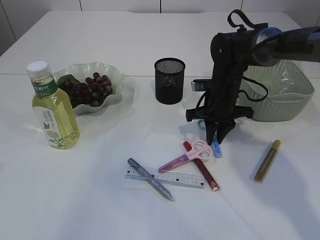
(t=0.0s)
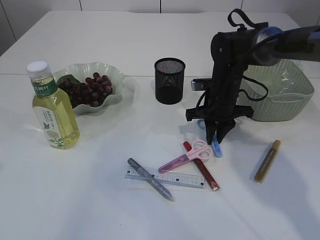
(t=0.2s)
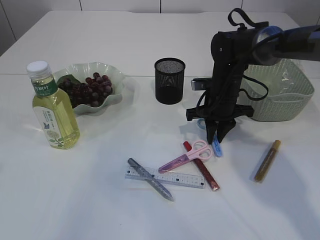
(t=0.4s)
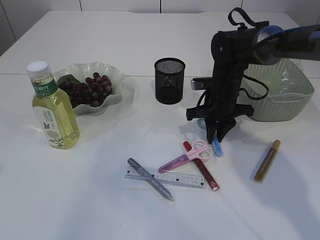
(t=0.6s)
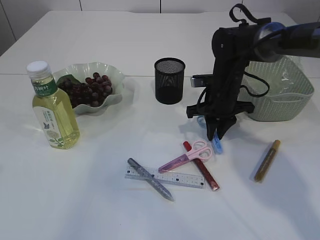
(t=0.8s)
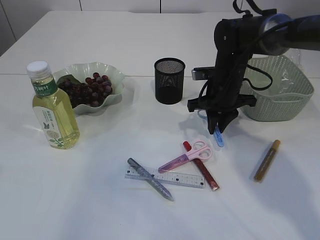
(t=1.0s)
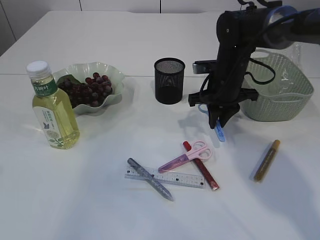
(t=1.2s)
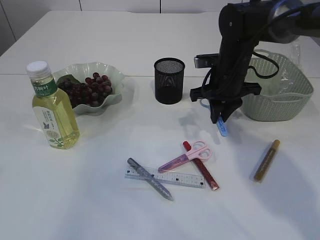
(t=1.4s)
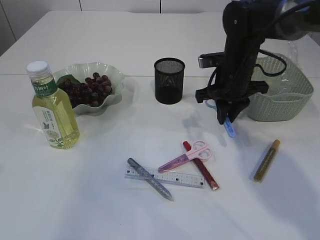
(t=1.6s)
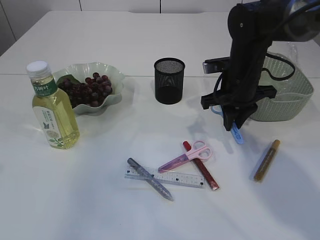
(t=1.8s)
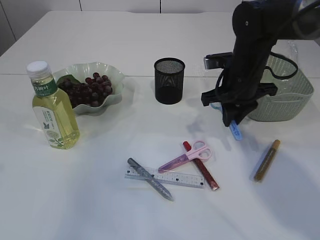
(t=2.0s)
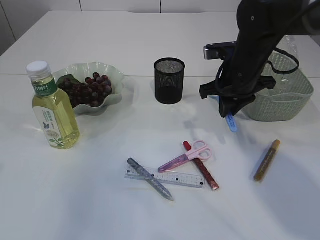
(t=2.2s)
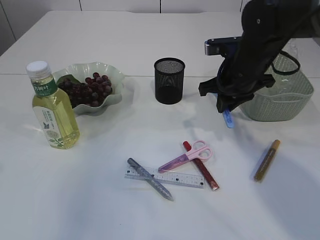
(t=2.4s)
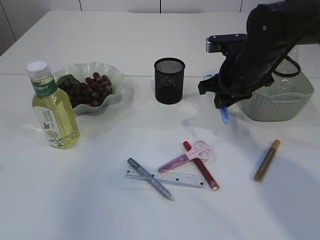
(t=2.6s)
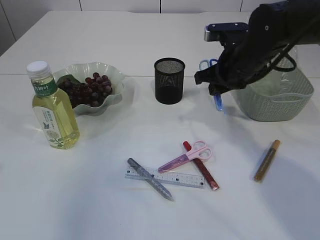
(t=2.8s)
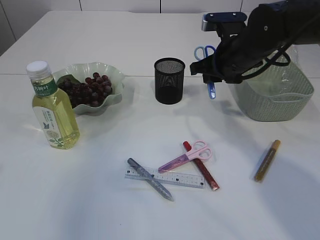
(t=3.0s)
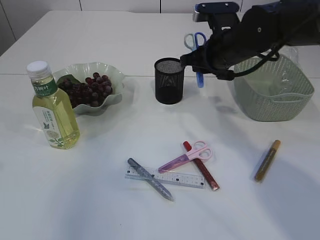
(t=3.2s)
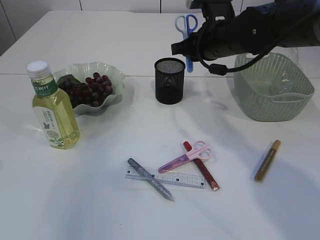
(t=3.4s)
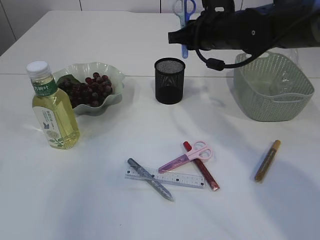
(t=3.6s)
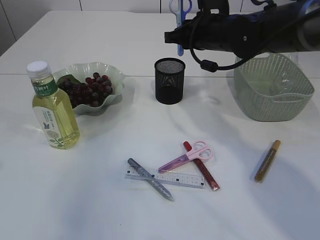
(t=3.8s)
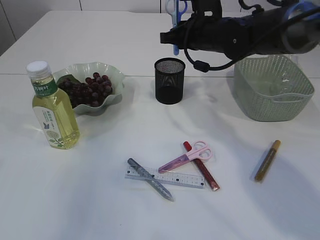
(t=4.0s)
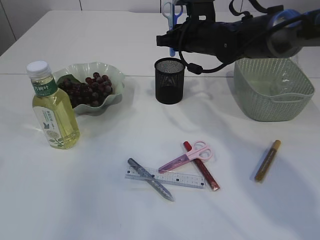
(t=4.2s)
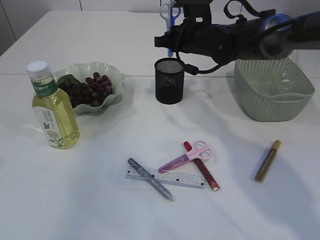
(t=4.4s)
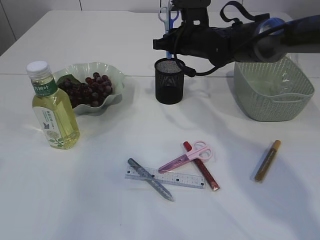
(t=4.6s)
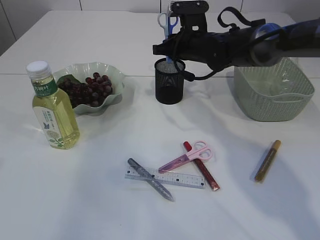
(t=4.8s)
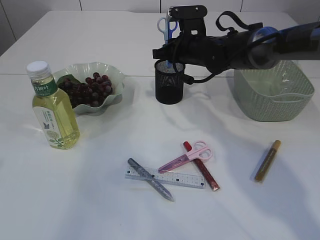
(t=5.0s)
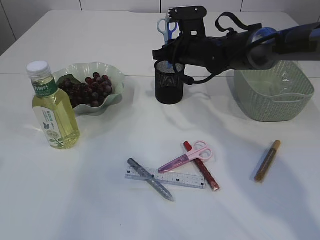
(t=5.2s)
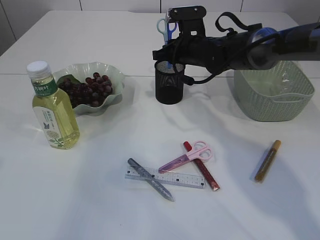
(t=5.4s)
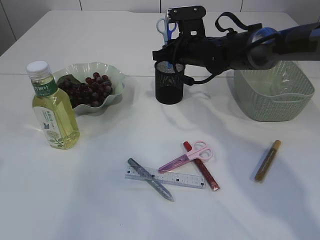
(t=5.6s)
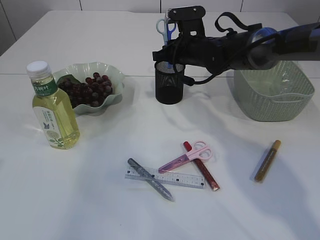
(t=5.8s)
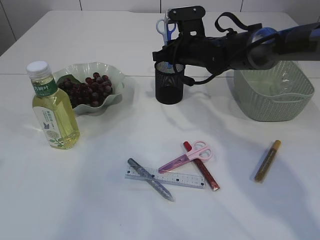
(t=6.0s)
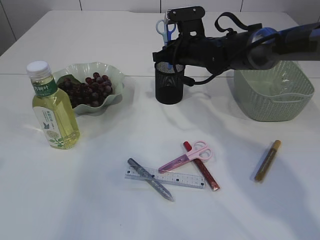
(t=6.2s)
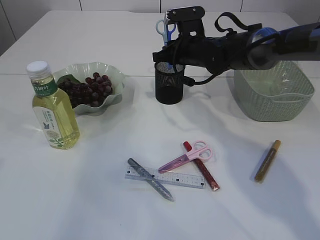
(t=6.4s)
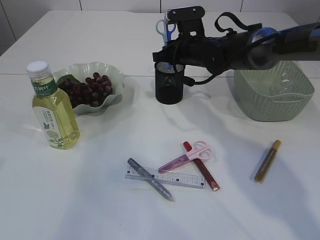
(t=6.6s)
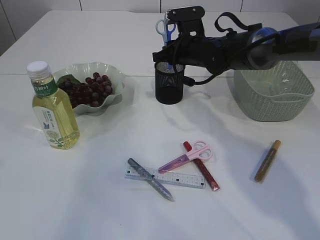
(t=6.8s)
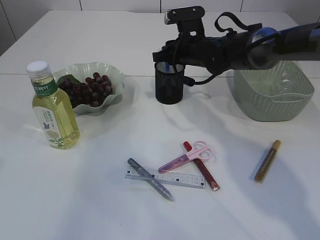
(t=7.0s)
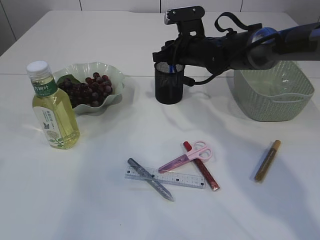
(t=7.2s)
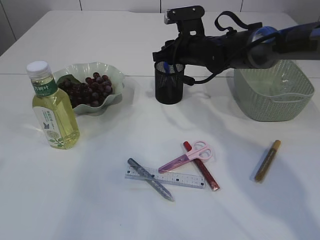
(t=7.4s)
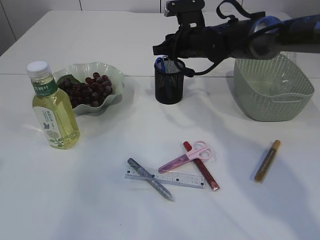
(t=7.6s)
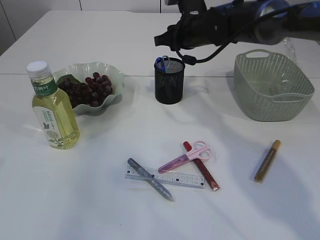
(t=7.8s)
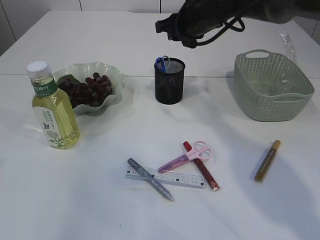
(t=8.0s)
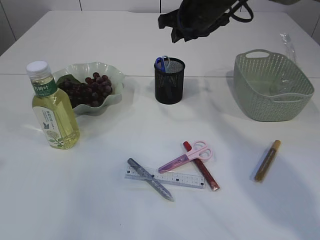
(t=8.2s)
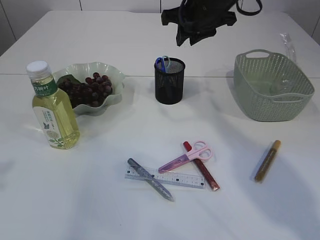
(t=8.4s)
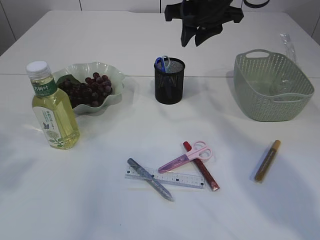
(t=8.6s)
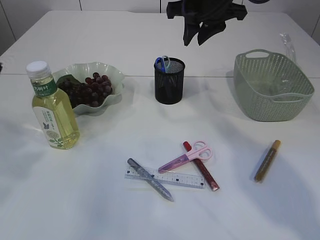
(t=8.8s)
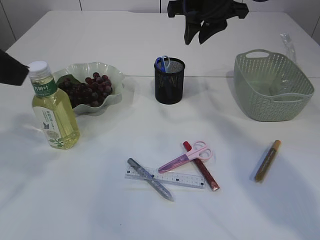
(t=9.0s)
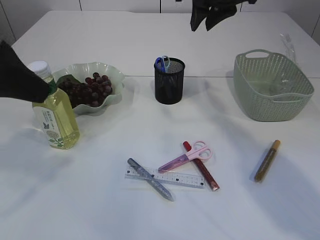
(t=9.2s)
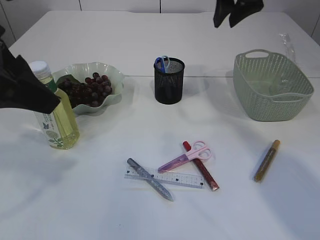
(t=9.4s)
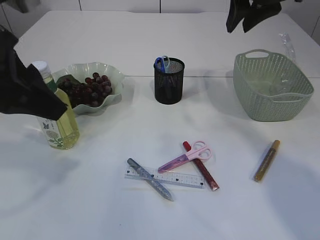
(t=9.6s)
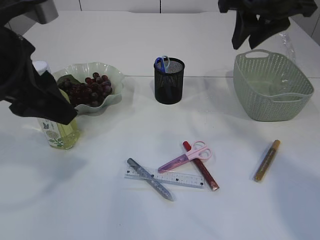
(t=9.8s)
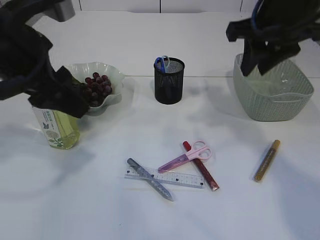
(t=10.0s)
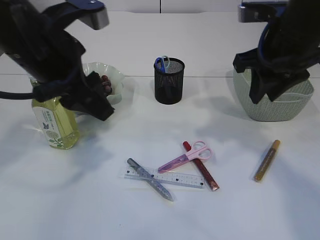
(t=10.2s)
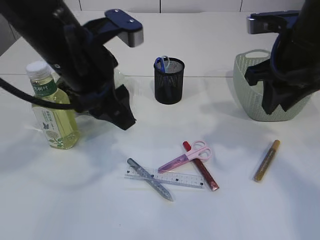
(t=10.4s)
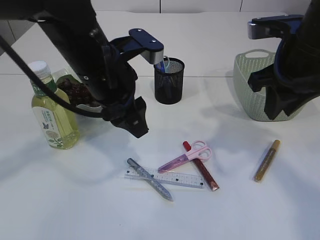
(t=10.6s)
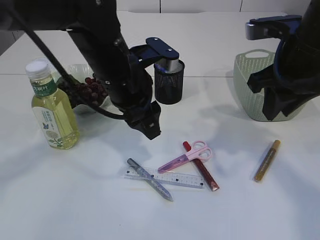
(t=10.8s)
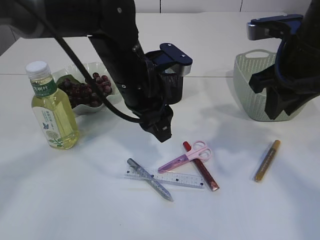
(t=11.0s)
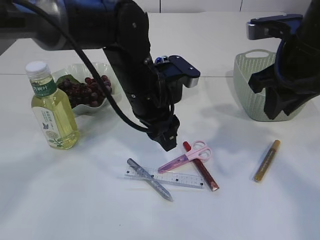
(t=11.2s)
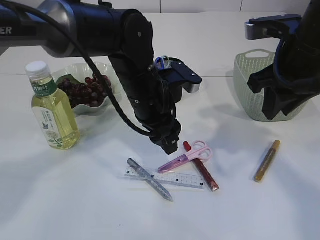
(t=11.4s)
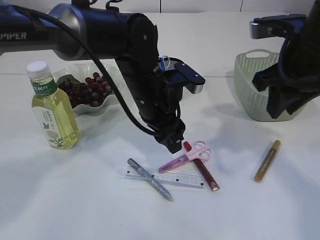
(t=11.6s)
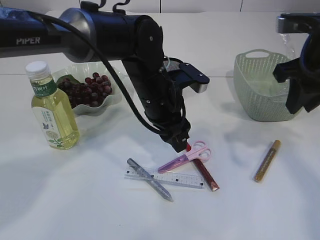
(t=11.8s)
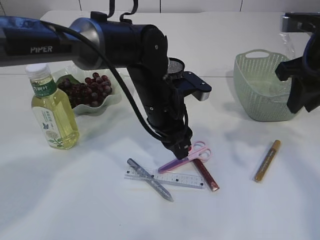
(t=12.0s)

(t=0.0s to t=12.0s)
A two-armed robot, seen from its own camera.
Step, t=1.6s - t=7.6s: Place the blue scissors into the pen holder.
t=0.0s - t=1.6s: The right gripper is displaced upward by about 5 cm.
t=3.0s - t=4.4s: The right gripper shifts approximately 10 cm forward and to the left.
t=4.4s - t=7.6s: The grippers make only small movements.
t=7.6s - t=9.0s: The left gripper moves forward and to the right, about 10 cm, while the right gripper travels upward and backward by some 15 cm.
t=9.0s - t=10.4s: The left gripper heads to the right, downward and forward, covering approximately 15 cm. Meanwhile the right gripper travels backward and to the right by roughly 15 cm.
t=10.4s - t=12.0s: The left gripper goes about 15 cm downward, to the right and forward.

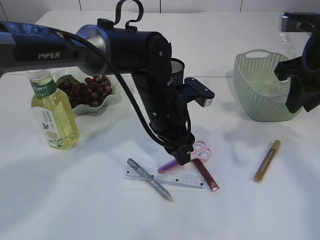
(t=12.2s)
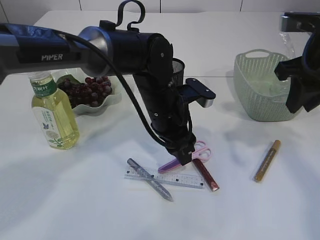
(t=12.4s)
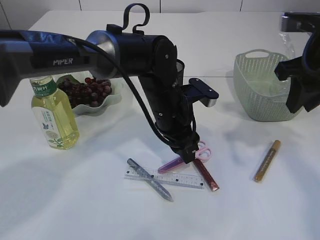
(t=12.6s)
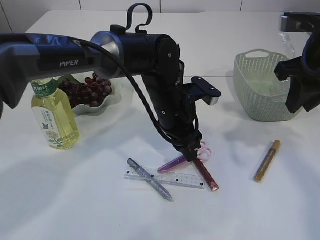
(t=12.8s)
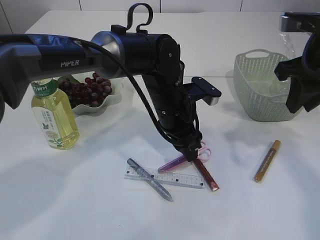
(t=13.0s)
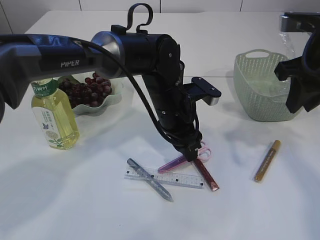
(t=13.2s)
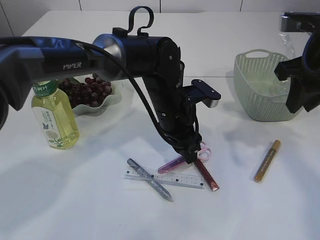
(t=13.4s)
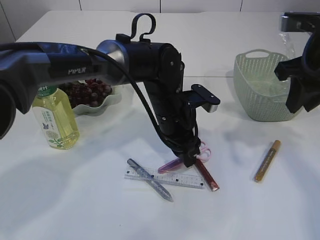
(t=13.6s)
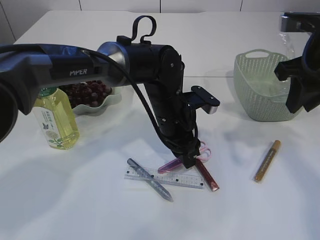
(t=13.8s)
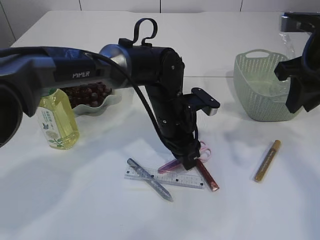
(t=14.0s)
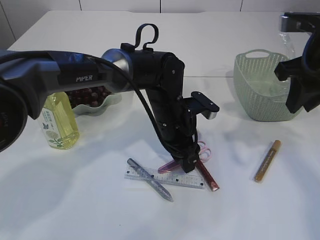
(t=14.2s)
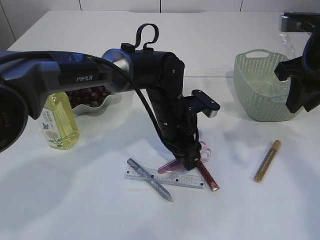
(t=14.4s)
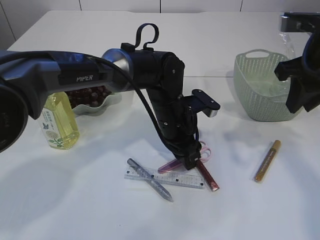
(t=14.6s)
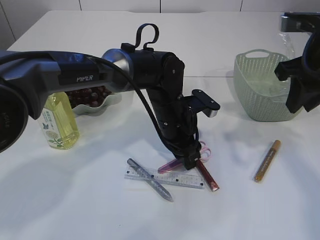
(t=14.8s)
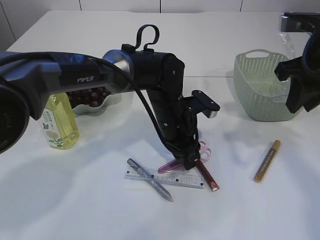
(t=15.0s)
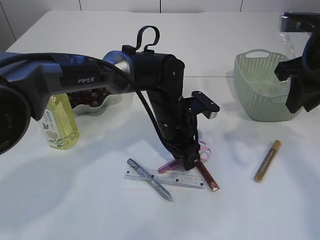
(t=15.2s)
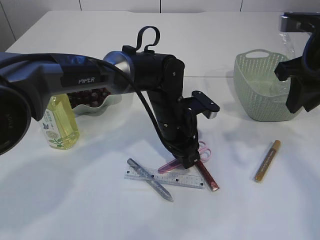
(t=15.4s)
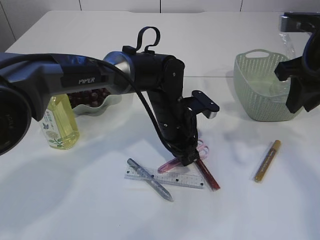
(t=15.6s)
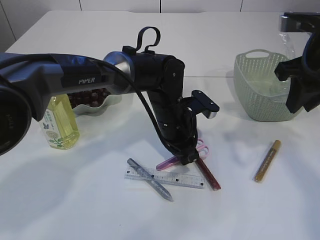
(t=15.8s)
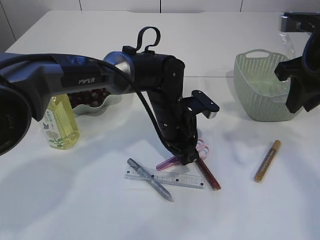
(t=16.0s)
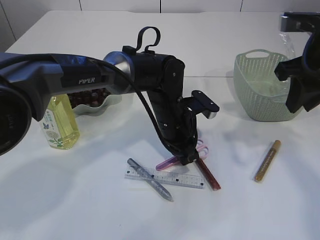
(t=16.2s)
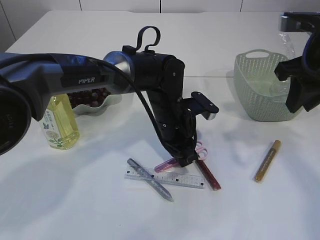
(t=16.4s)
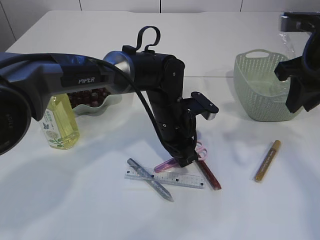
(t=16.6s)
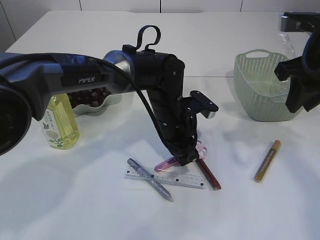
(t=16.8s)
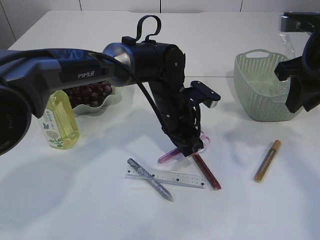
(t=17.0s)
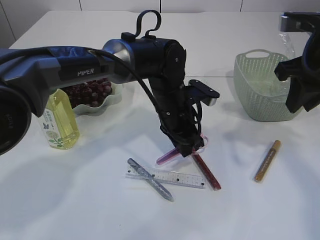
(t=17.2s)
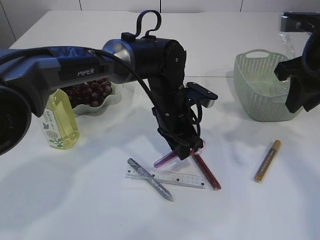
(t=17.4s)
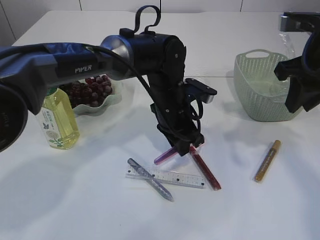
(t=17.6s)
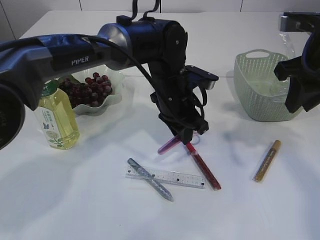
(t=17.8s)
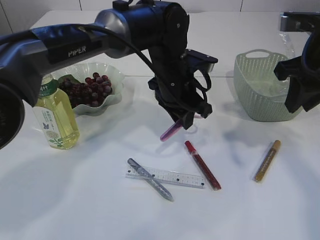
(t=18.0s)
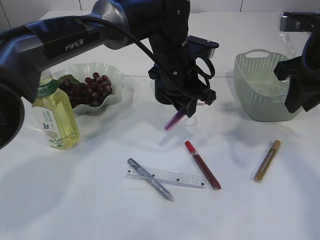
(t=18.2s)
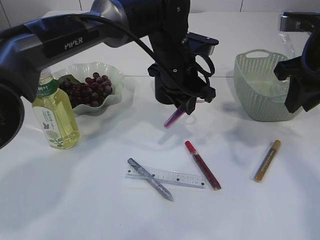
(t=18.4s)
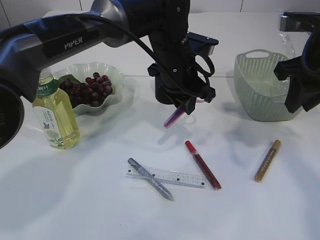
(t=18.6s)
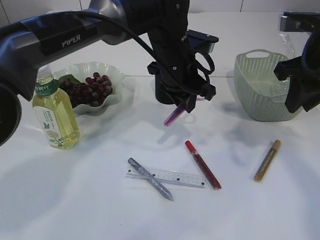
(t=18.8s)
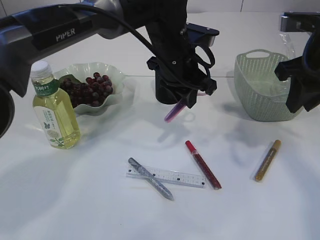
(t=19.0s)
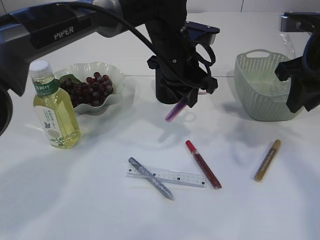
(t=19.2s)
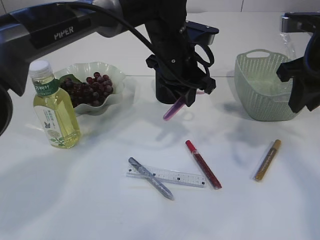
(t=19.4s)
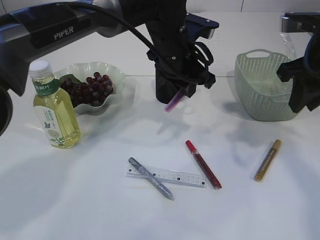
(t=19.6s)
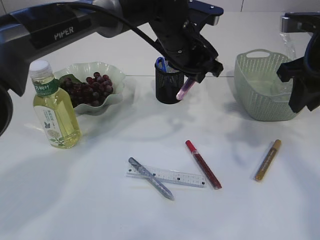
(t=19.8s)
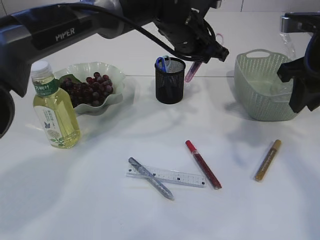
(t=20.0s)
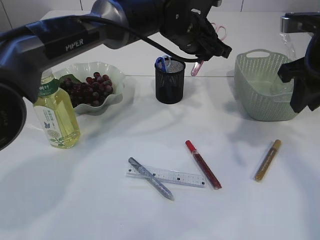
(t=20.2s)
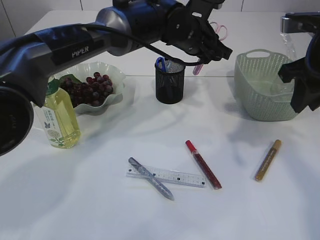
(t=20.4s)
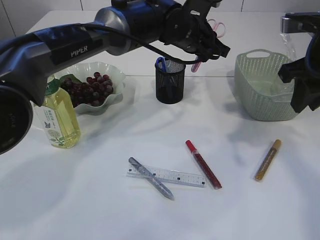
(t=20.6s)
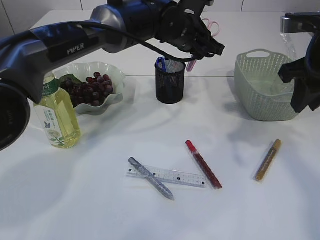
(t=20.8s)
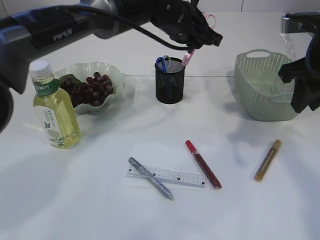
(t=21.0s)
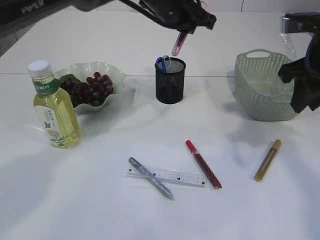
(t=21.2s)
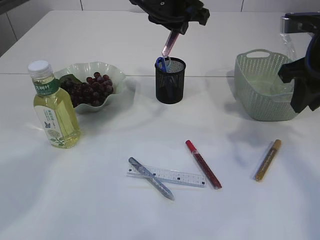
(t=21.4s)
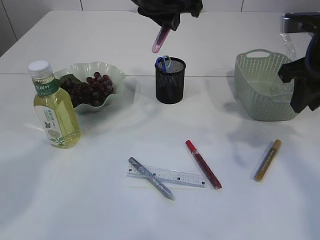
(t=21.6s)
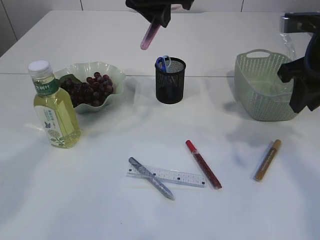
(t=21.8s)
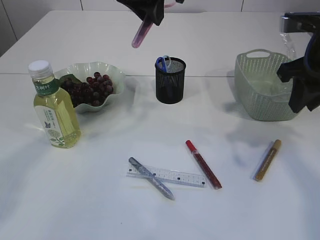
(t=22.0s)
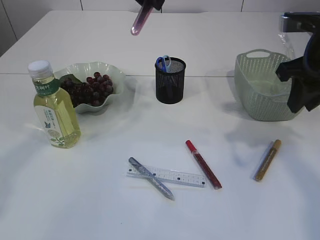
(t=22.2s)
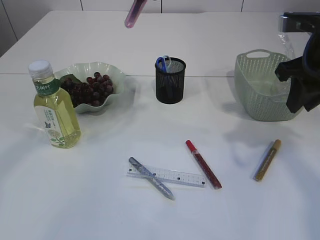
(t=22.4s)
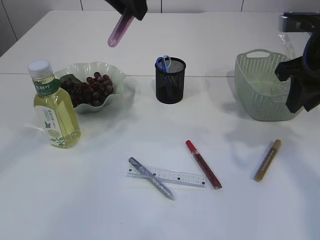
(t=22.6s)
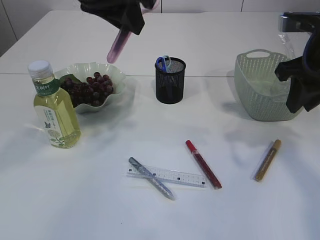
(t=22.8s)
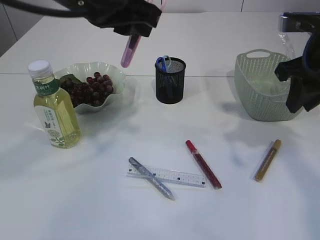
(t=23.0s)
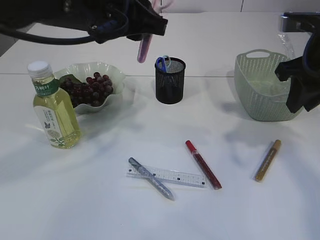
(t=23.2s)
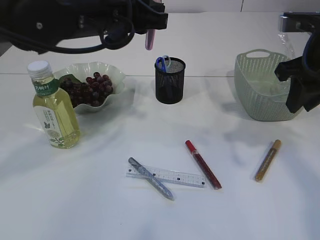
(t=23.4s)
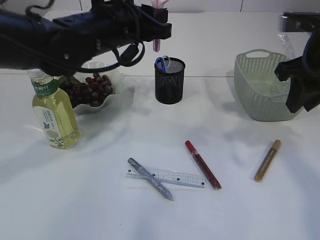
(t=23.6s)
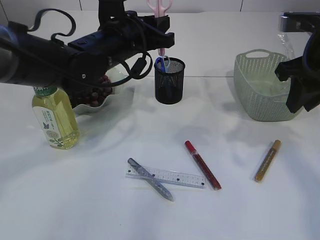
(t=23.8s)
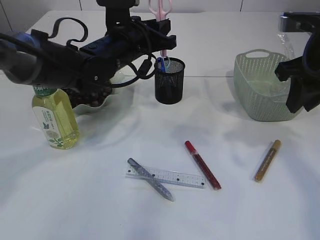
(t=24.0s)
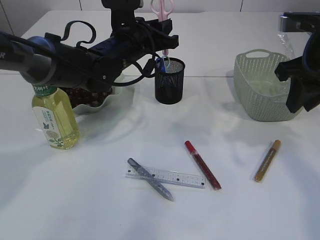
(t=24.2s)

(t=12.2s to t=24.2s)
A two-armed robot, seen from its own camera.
Step, t=12.2s - t=17.8s: pick up the pink scissors.
t=12.2s - t=15.2s: The grippers stay close to where they were, moving slightly.
t=15.2s - t=16.6s: The left gripper closes its fingers.
t=16.6s - t=18.2s: The left gripper is displaced upward by about 10 cm.
t=18.2s - t=19.8s: There are only small adjustments of the grippers.
t=19.8s - t=21.2s: The left gripper shifts some 5 cm upward.
t=21.2s - t=22.6s: The left gripper shifts roughly 15 cm upward, backward and to the left.
t=22.6s - t=24.2s: The left gripper travels downward and forward by roughly 20 cm.
